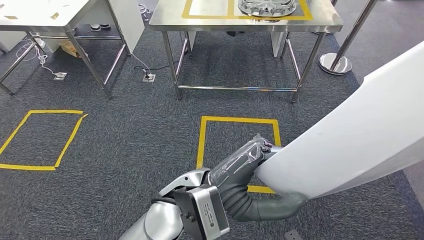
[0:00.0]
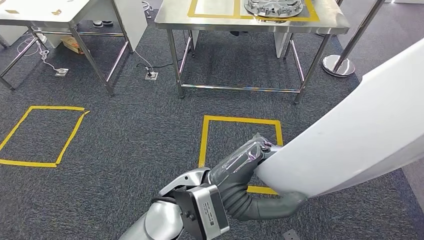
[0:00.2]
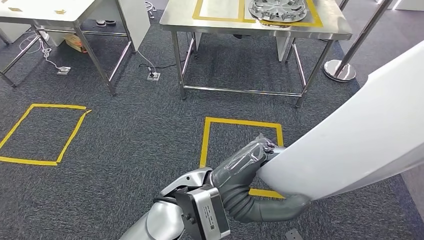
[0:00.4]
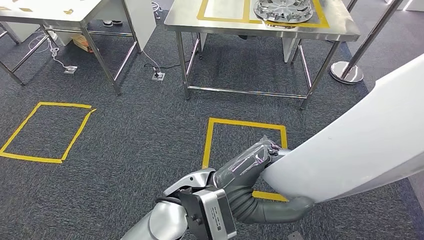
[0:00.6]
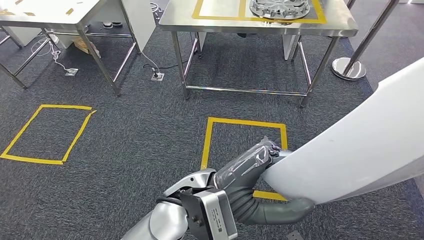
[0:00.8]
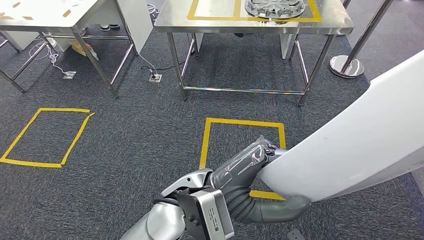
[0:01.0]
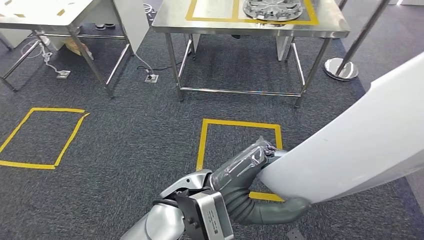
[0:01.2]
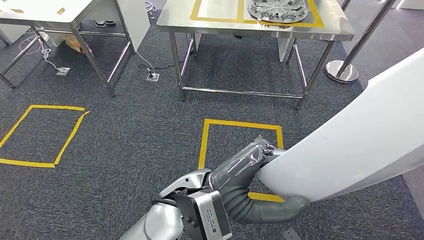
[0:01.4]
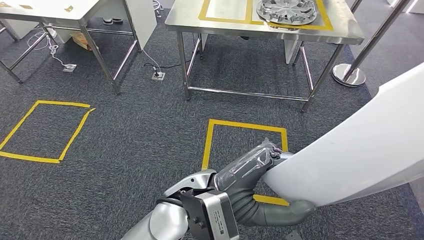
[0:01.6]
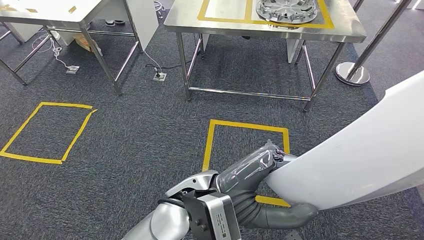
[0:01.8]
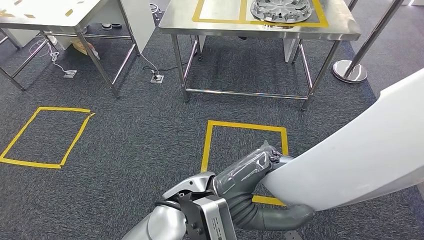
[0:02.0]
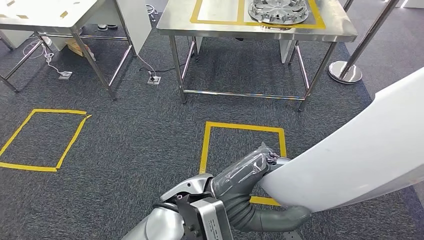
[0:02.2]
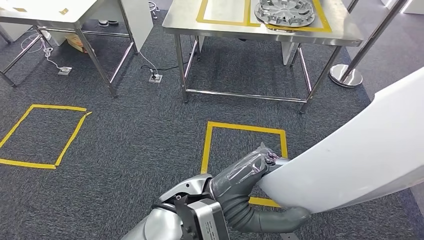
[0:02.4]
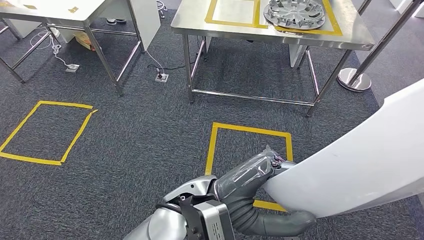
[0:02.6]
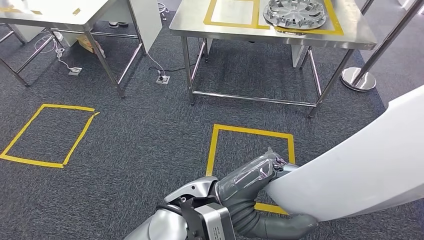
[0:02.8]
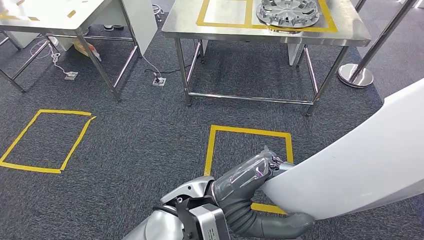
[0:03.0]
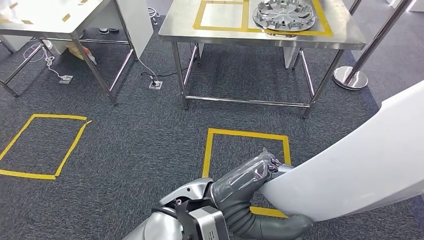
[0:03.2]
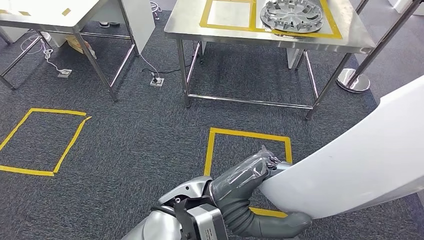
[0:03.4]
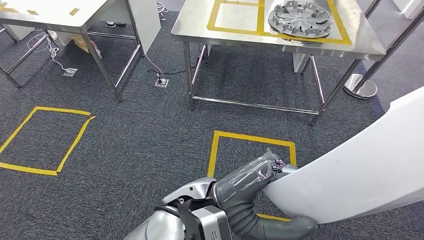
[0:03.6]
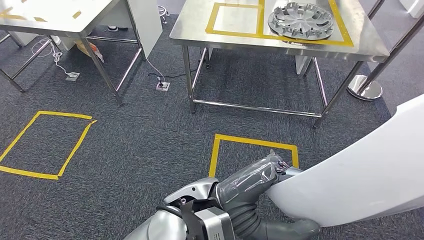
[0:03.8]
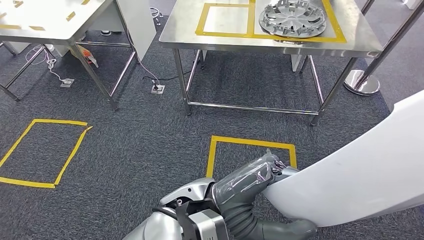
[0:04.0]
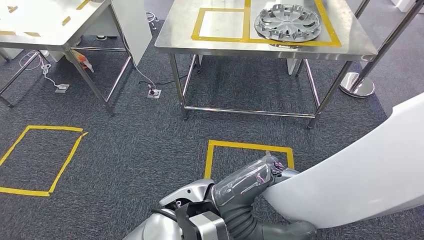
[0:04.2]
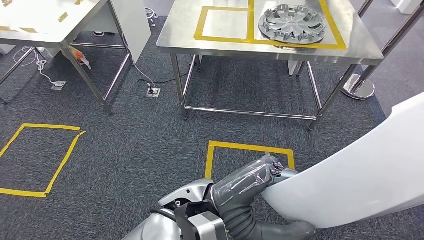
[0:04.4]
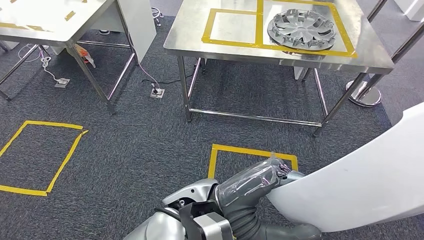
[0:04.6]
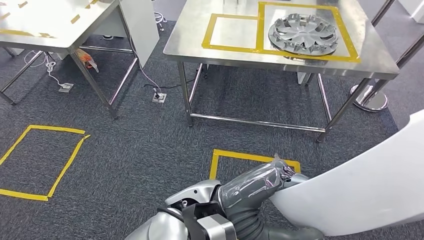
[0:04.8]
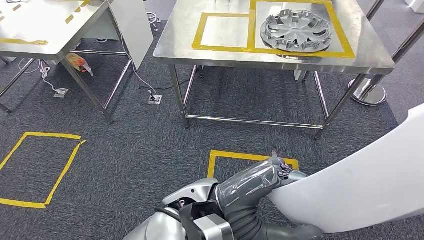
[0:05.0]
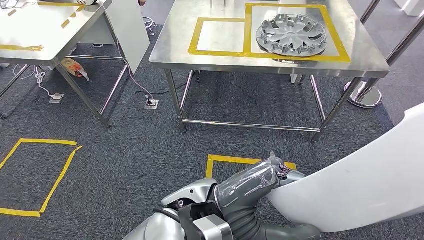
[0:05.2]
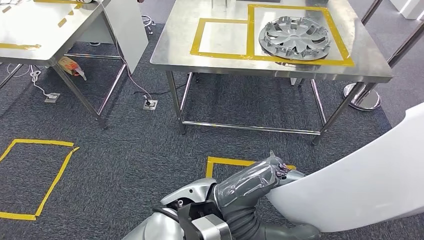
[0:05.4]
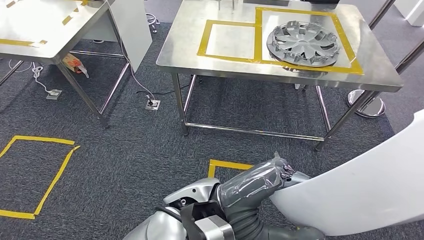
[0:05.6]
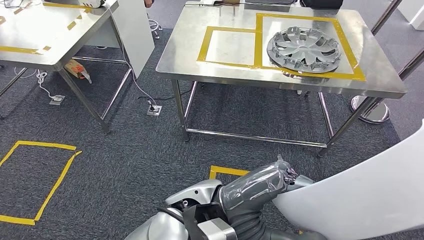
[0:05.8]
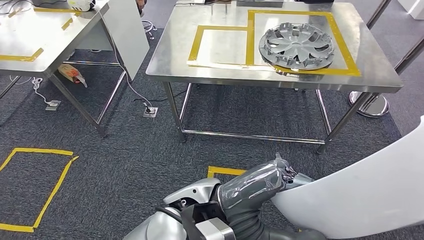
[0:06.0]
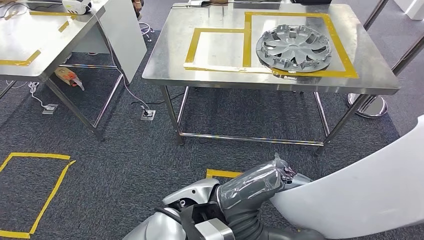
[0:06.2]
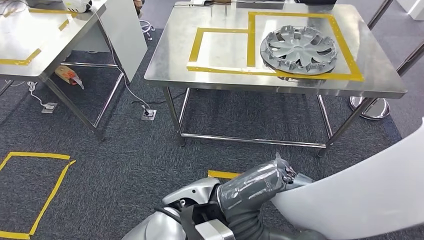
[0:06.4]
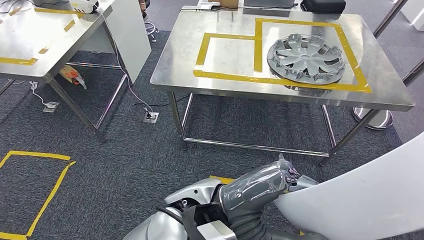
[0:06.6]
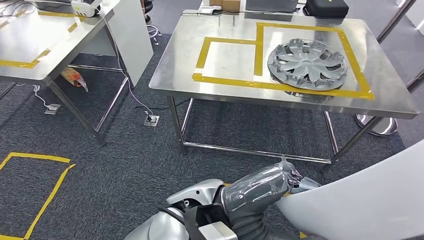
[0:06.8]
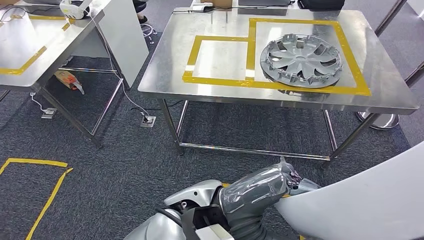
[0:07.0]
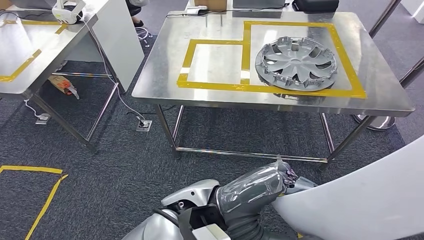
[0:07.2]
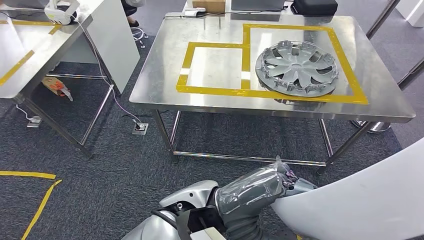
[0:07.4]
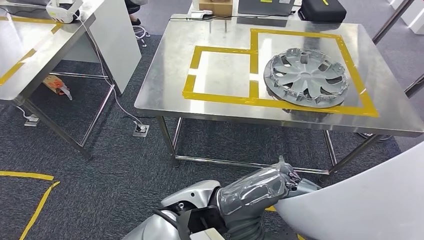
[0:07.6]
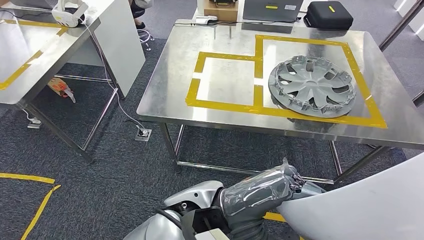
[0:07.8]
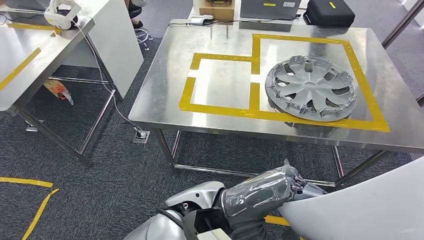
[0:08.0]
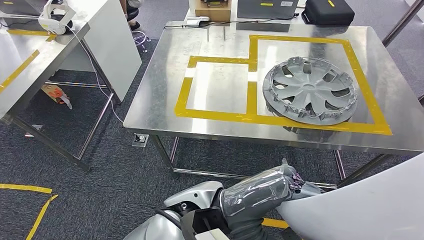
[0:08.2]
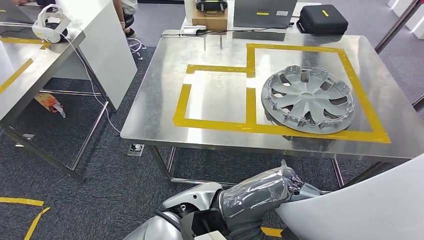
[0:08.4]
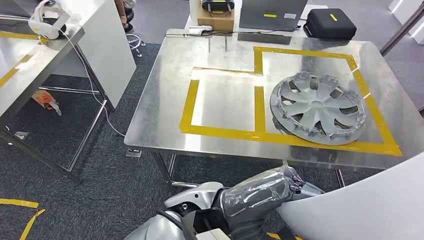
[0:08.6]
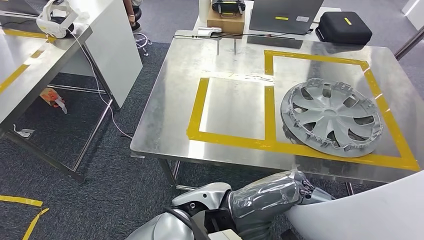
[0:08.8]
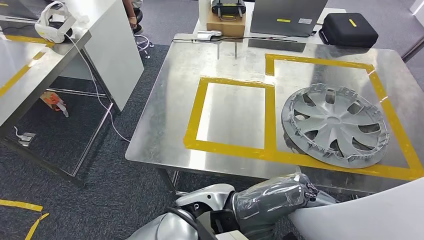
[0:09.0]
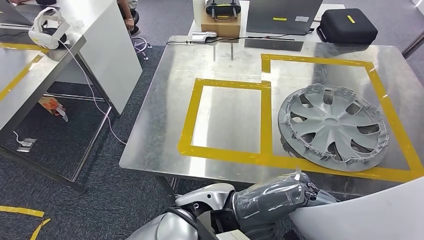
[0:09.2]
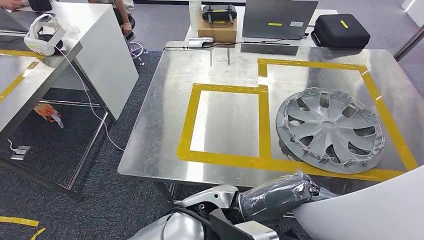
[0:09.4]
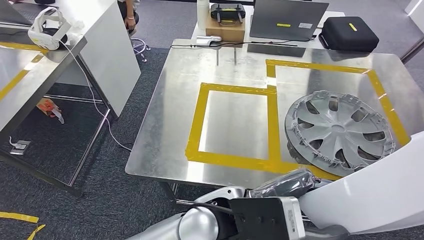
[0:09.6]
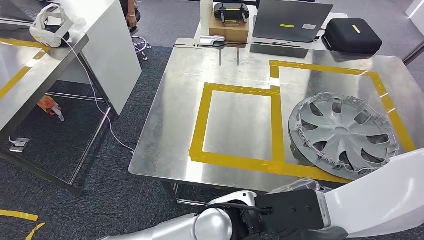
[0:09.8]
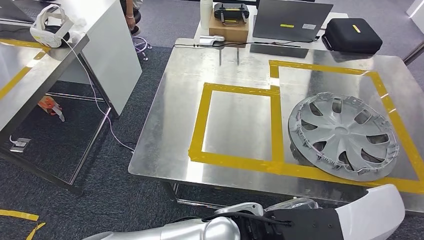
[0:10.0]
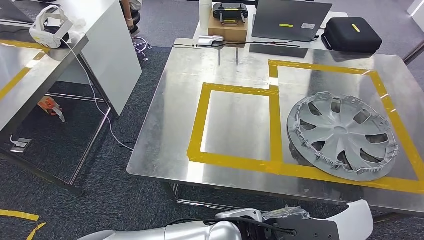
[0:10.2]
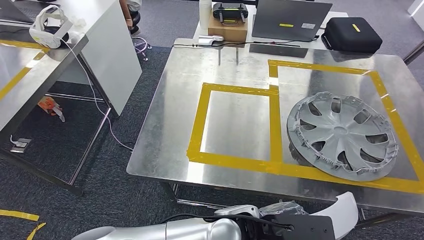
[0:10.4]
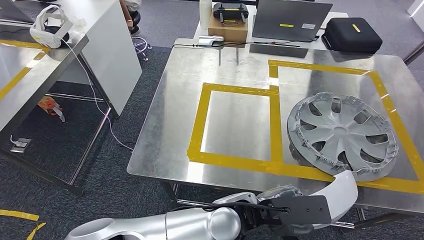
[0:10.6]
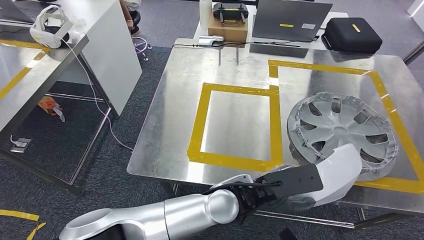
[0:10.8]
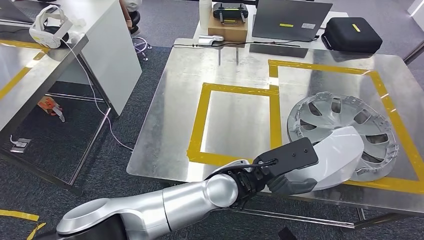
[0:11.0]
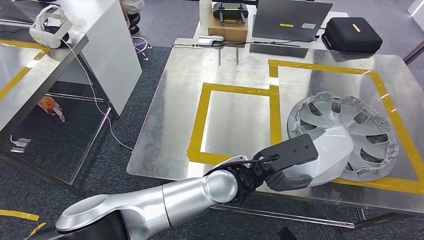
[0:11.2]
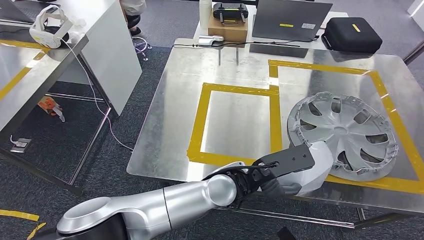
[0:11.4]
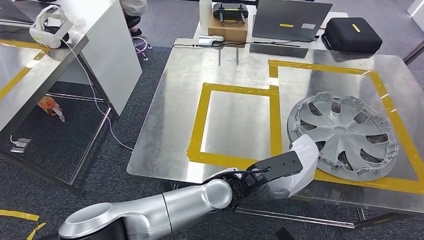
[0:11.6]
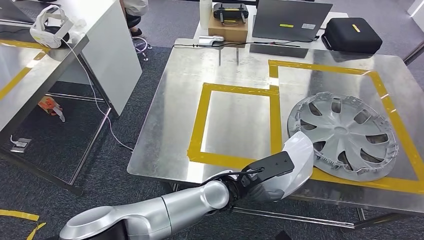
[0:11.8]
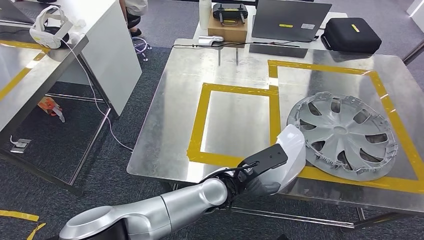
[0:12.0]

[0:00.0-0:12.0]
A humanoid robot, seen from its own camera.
Step, 0:00.0 to 0:06.2: Move the large material to the front of the workbench.
0:10.4 to 0:12.0: The left hand shifts about 10 cm forward and to the left.

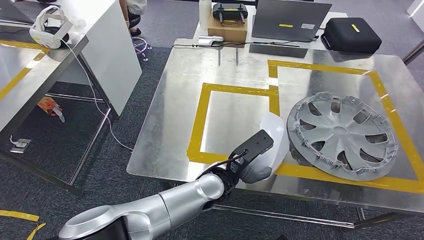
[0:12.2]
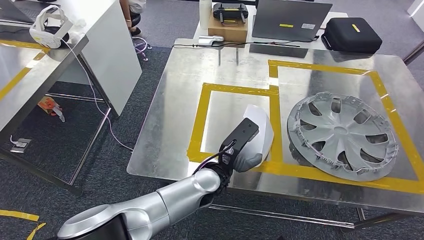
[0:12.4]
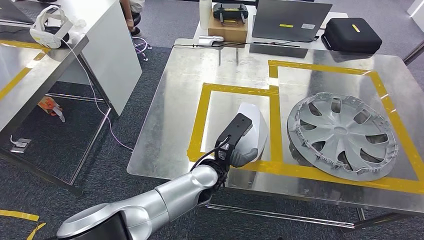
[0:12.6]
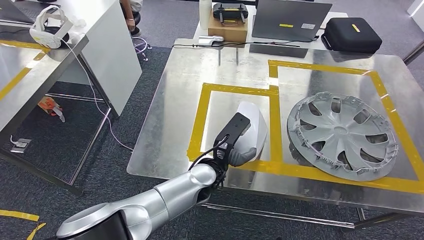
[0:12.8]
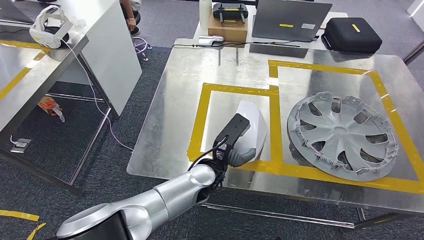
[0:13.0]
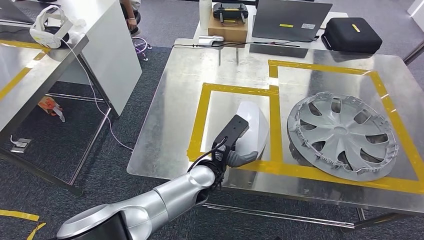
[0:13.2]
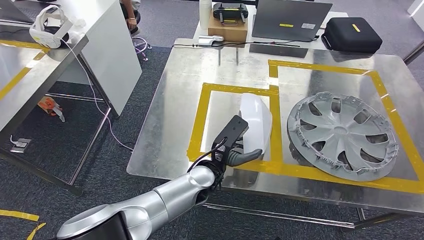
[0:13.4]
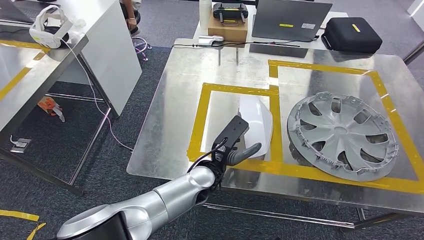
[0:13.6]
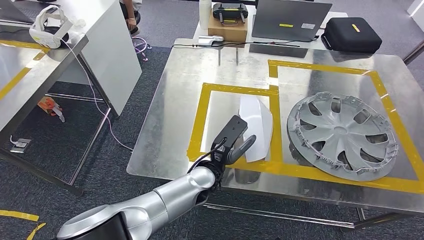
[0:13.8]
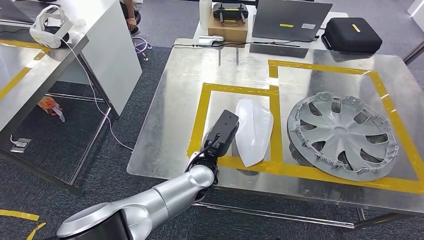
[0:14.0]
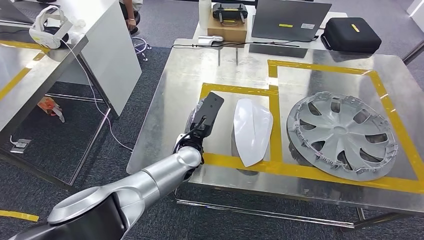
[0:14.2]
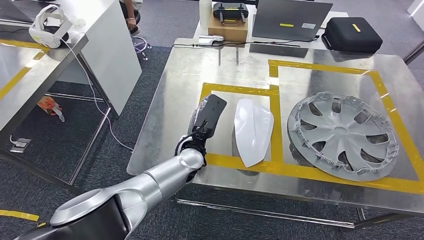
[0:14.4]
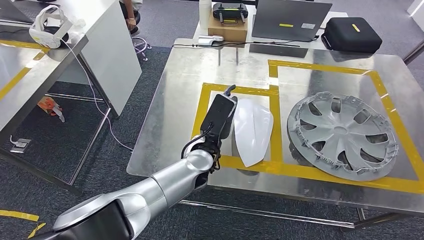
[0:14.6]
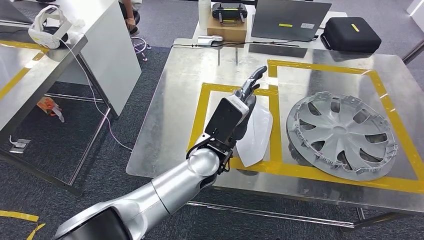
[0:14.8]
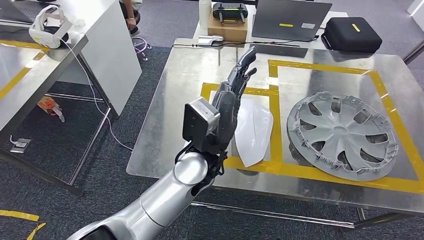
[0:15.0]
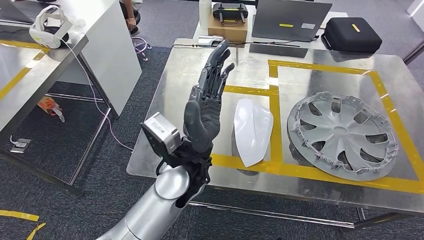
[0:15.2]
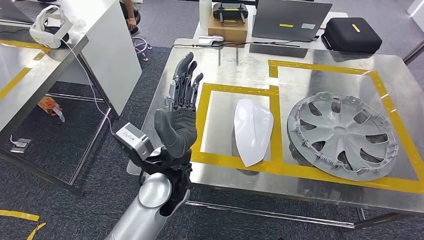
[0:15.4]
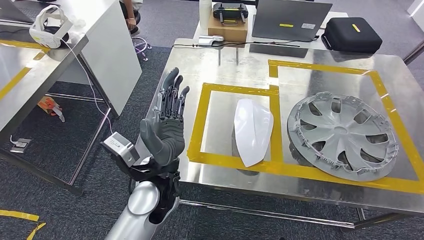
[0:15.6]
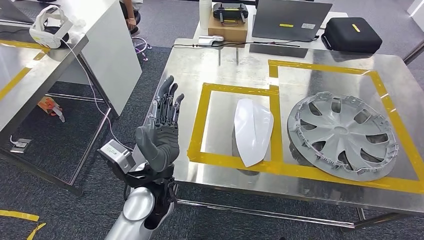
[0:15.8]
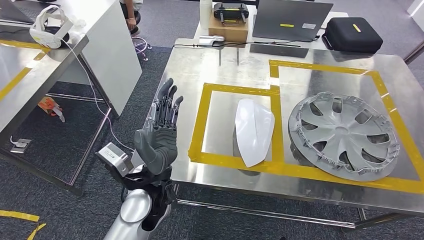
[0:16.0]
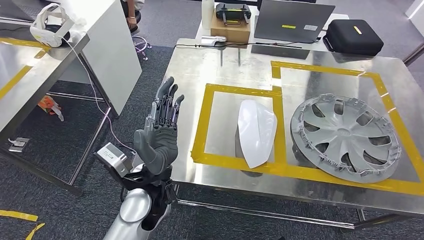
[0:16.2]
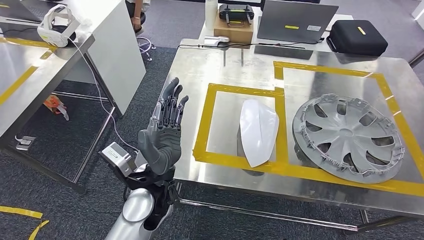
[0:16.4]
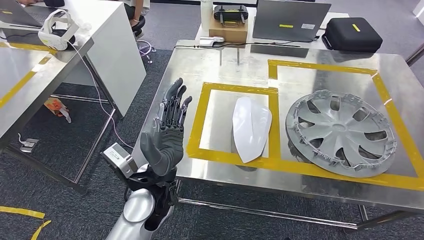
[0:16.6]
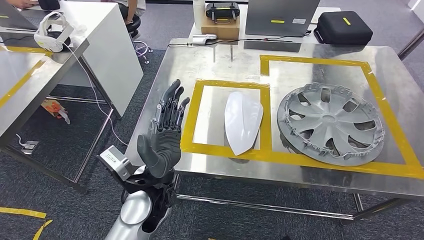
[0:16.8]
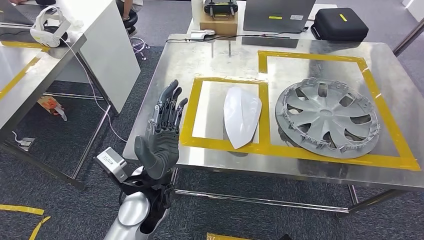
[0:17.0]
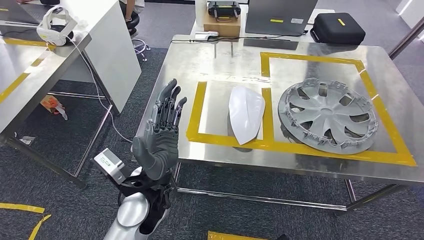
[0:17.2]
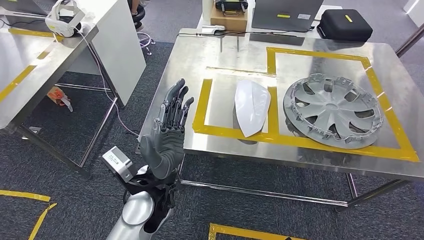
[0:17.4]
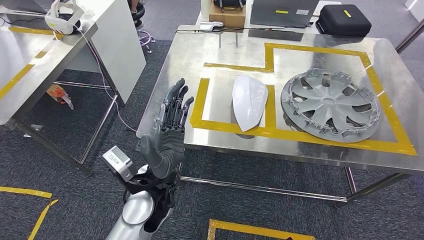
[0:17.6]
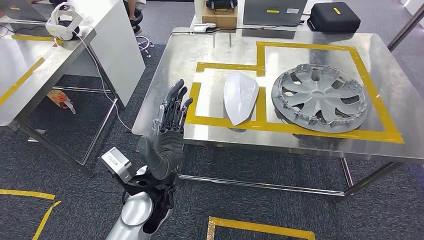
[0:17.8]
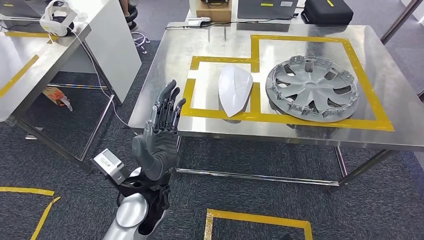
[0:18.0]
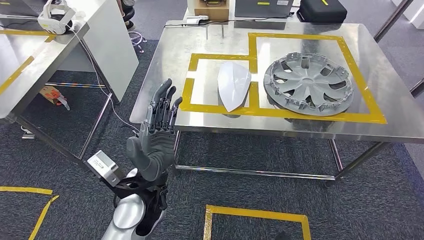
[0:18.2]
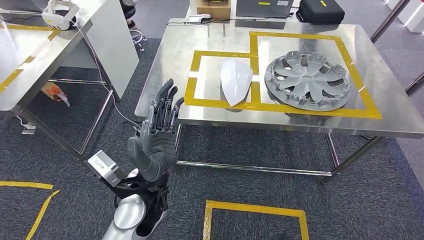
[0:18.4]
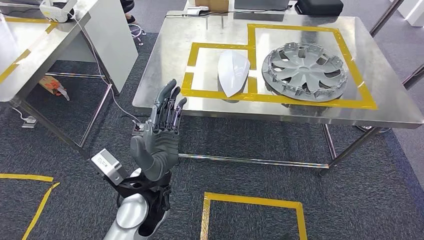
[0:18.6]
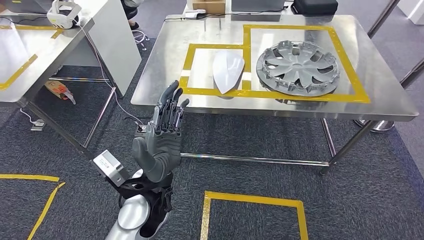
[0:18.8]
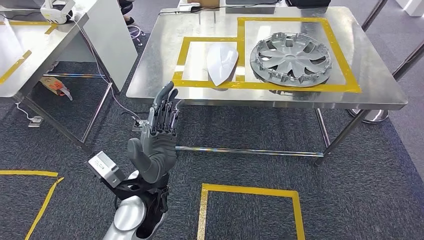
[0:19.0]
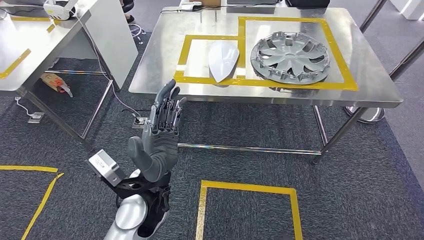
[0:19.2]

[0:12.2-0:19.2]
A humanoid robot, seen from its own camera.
Step, 0:12.2 to 0:15.0: Insert the large material into the corresponding hole on the workbench.
0:12.2 to 0:13.6: The hands move only a little.
0:13.6 to 0:15.0: The left hand travels upward and to the right by approximately 10 cm.
